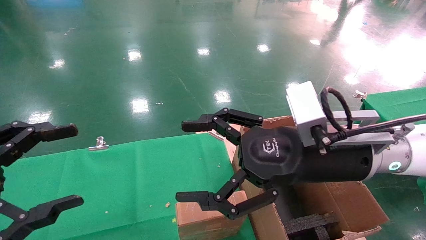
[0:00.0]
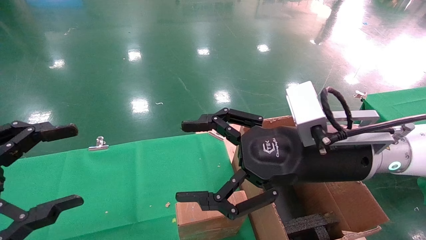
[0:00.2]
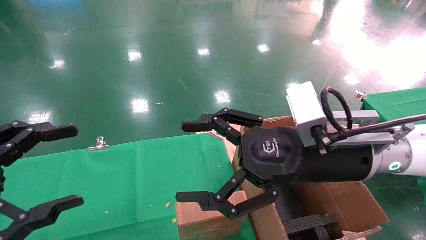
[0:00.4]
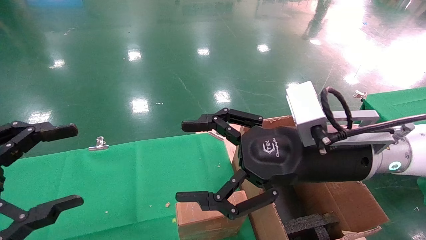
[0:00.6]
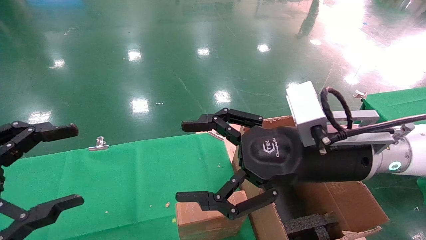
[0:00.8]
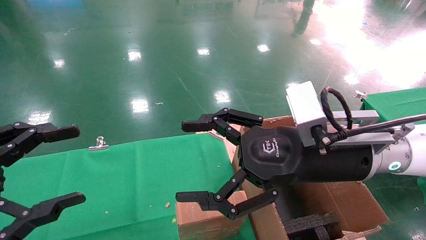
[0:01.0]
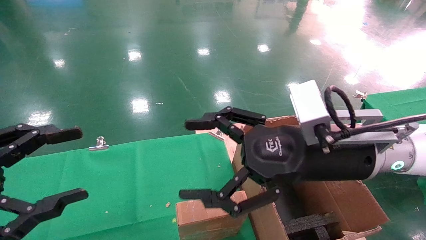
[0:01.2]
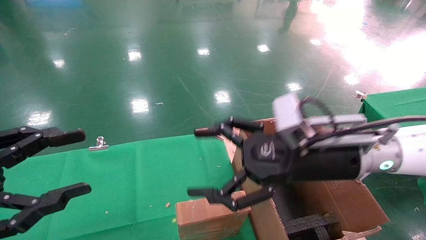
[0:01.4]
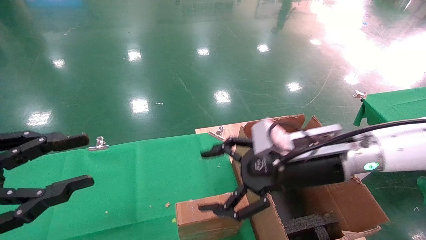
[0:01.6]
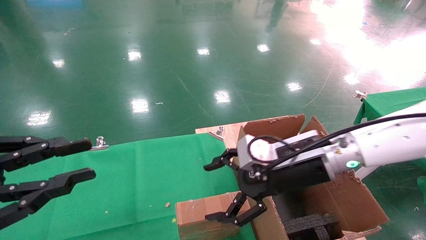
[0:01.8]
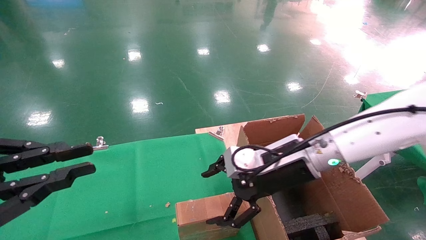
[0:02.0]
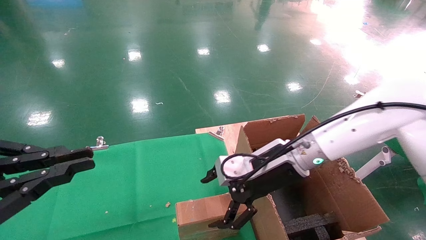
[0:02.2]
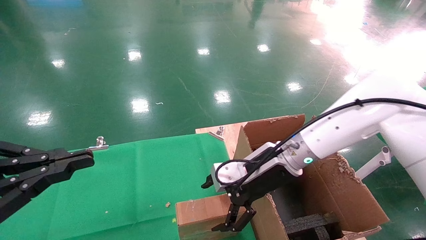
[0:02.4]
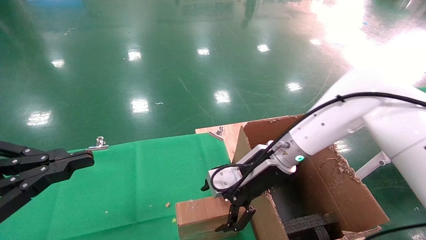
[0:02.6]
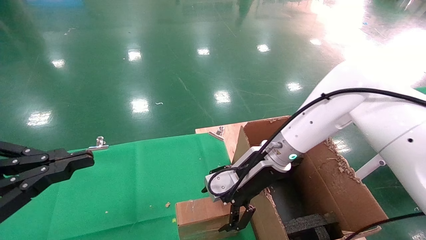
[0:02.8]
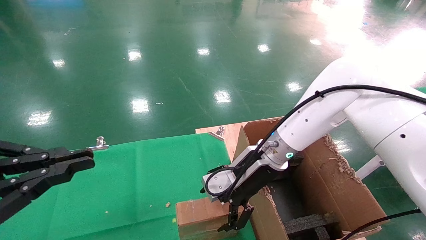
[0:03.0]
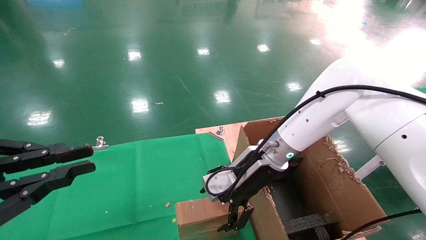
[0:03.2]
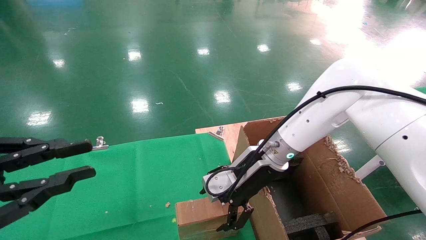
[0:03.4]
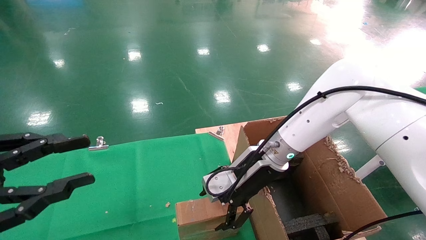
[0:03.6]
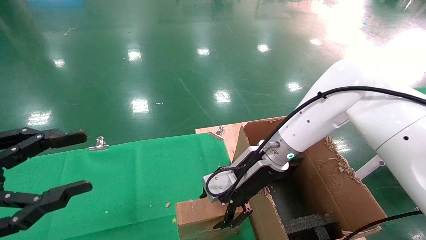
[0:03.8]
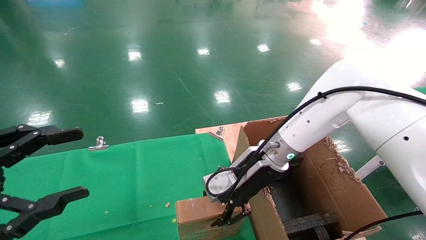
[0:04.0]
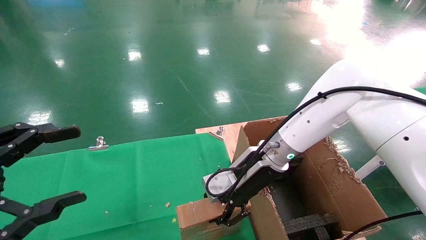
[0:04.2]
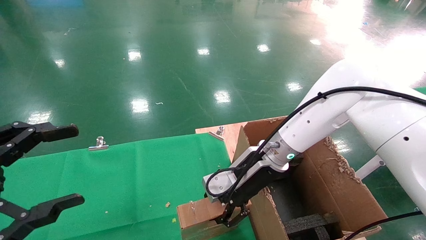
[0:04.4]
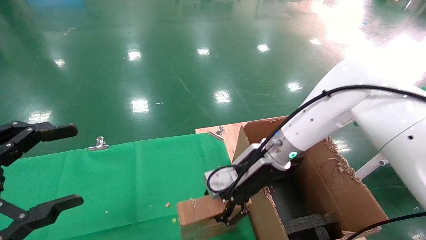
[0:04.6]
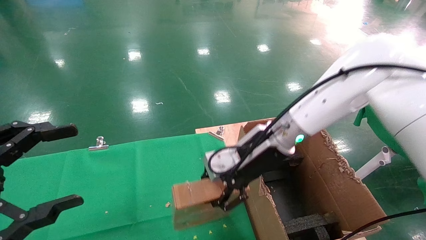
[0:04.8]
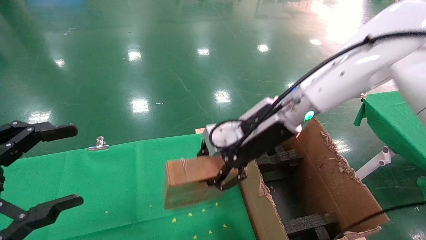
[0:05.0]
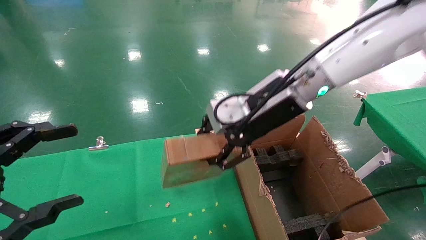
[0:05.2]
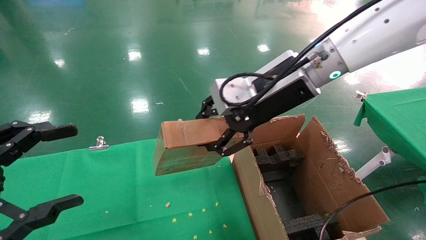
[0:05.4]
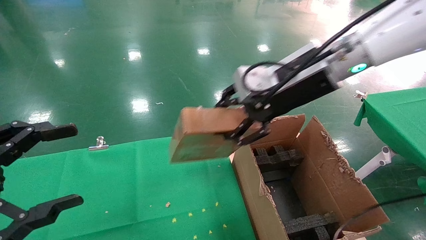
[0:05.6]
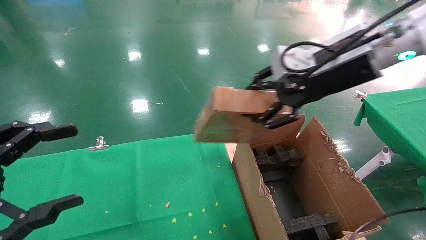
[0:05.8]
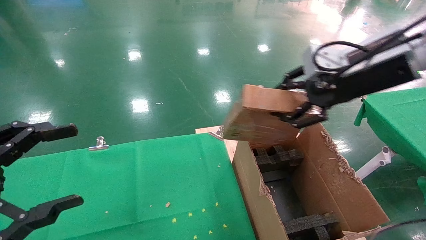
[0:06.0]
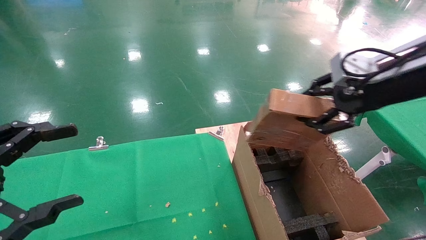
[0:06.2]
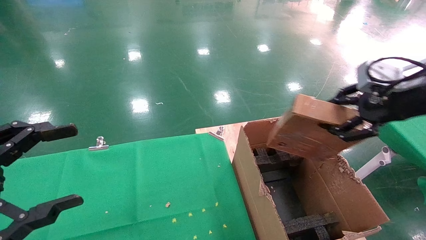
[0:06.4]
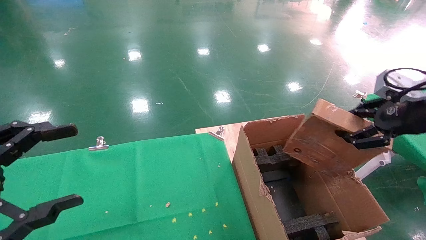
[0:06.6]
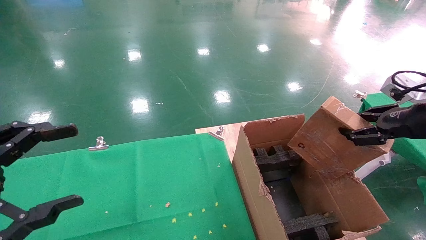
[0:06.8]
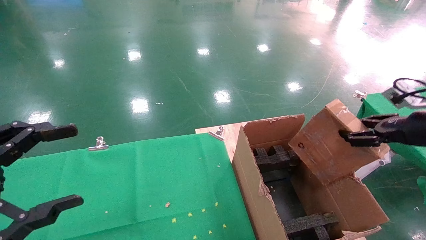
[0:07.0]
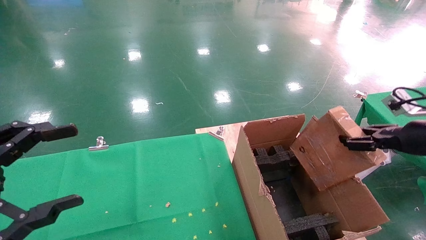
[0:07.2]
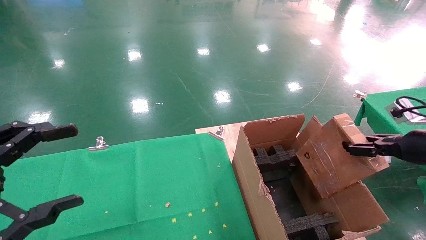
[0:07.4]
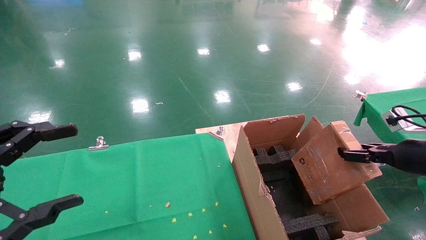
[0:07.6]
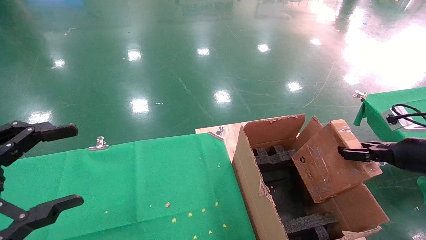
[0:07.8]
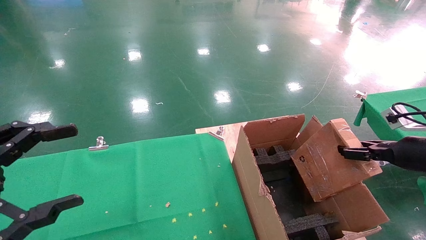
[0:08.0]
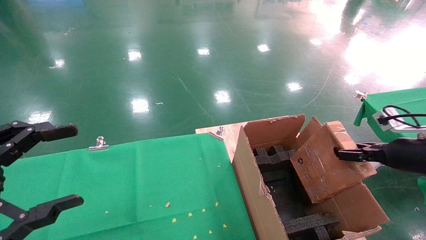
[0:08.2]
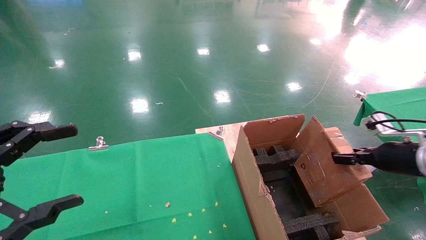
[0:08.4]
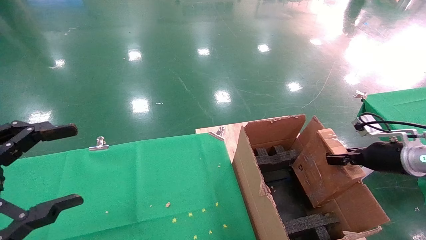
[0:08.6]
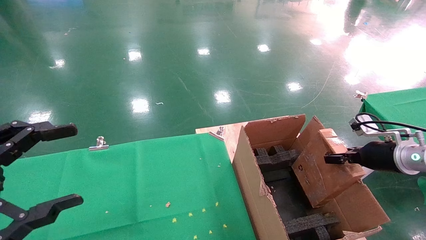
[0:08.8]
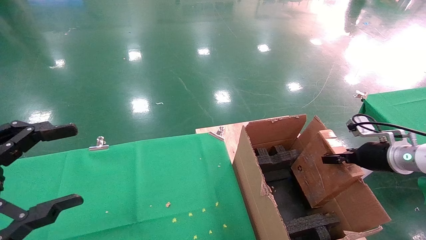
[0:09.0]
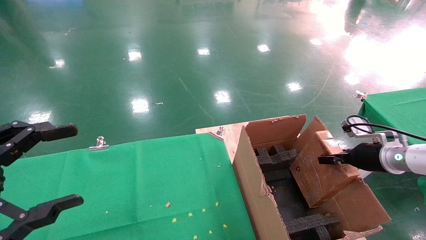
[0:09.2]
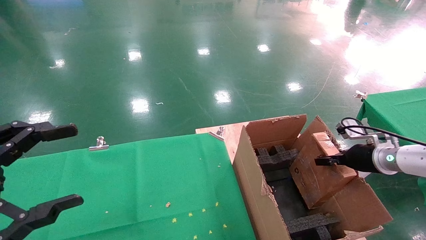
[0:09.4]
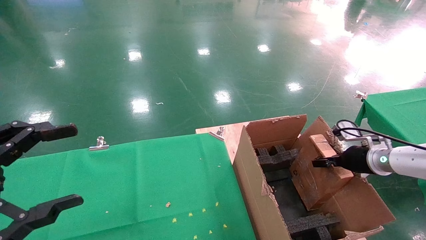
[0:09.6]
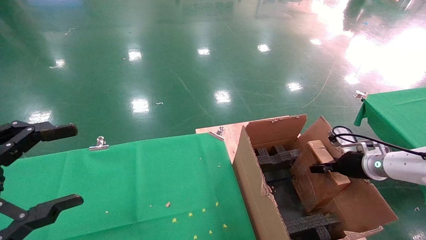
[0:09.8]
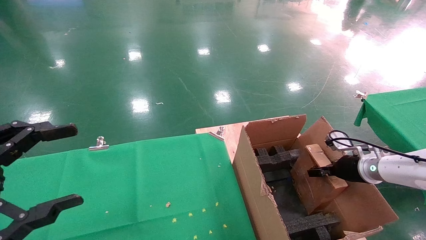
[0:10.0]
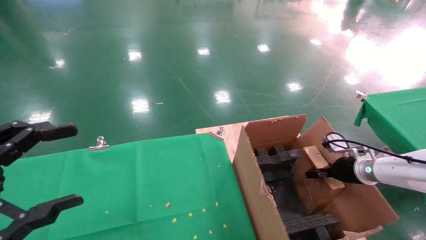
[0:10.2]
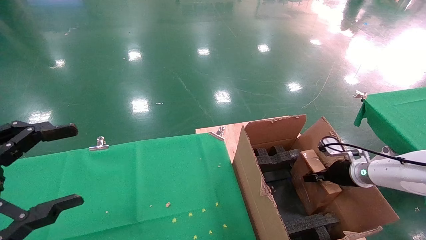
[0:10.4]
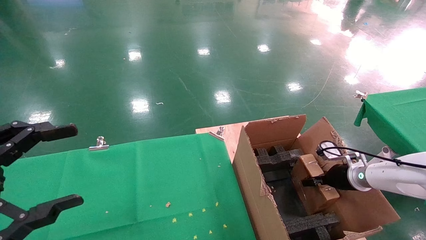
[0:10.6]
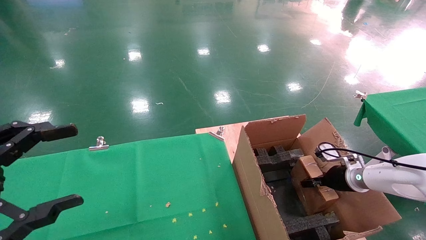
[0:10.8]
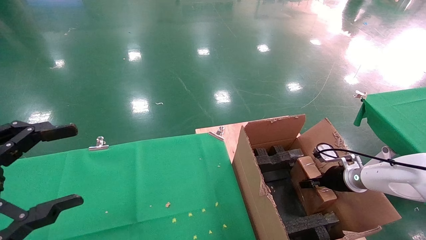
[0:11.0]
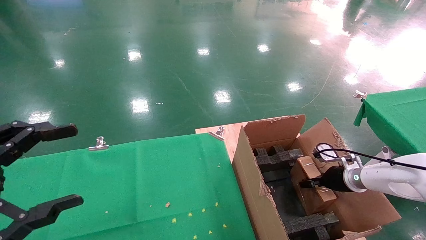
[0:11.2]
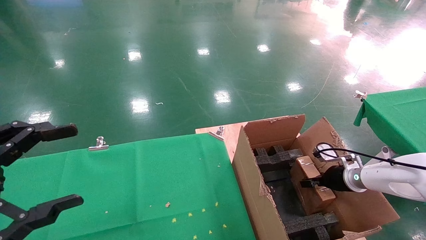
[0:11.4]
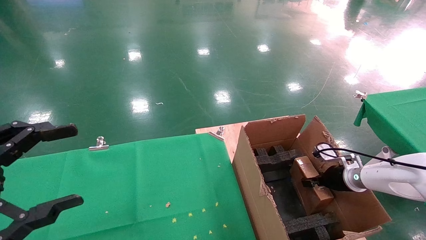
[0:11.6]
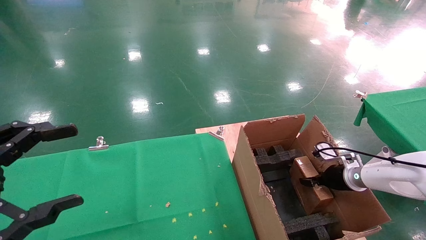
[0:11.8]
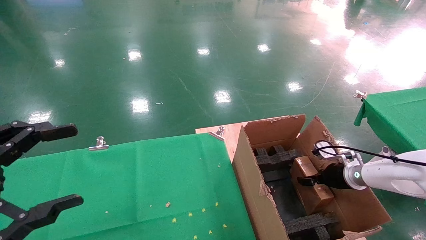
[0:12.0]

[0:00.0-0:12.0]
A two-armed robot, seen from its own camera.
Task of the whole recording: using a robotic arm to pick up a cardboard box and palace it the carton.
Step, 0:01.4 to 0:04.2: Pick up the mouse and the power cord paper box.
0:00.0 to 0:01.6: The right gripper shifts by about 5 cm; the left gripper closes its fingers.
0:01.6 to 0:03.0: The left gripper closes, while the right gripper goes some 10 cm forward and to the left.
0:03.0 to 0:04.4: The left gripper opens its fingers, while the right gripper closes its fingers.
0:04.4 to 0:06.0: The right gripper heads upward and to the right, covering approximately 25 cm.
0:06.0 to 0:07.6: The right gripper travels to the right and downward by roughly 25 cm.
0:07.6 to 0:09.0: The right gripper travels forward and downward by approximately 10 cm.
0:09.0 to 0:10.4: The right gripper travels downward by about 5 cm.
0:10.4 to 0:12.0: The right gripper opens.

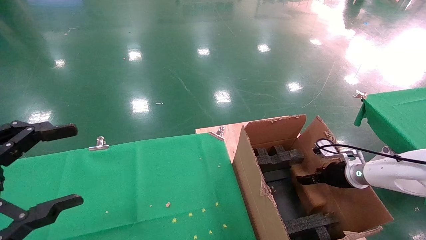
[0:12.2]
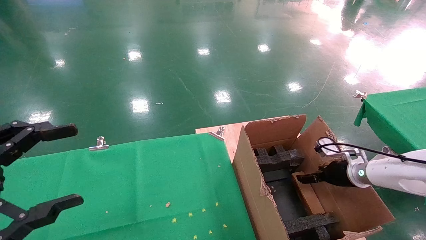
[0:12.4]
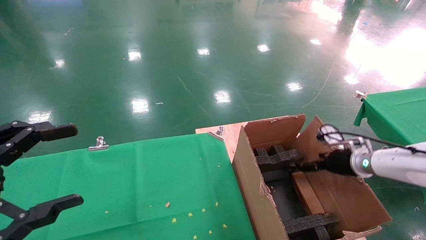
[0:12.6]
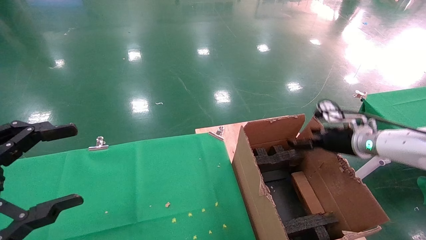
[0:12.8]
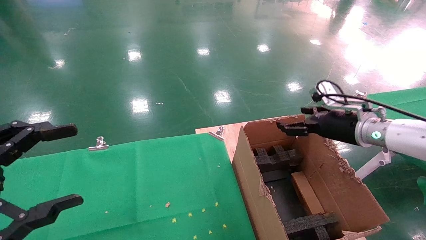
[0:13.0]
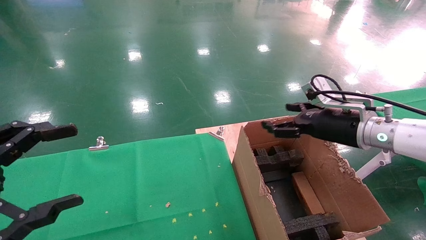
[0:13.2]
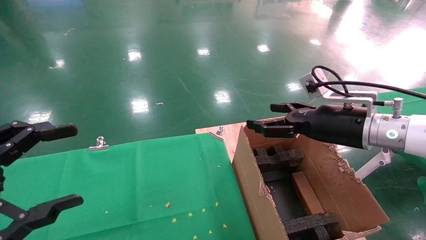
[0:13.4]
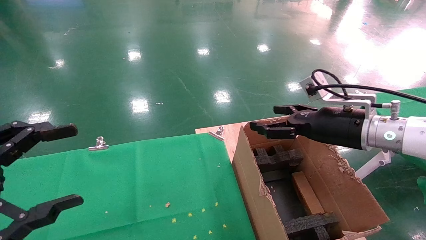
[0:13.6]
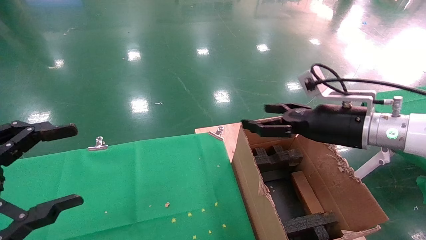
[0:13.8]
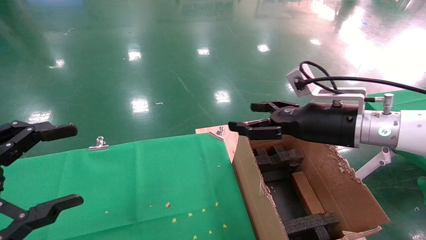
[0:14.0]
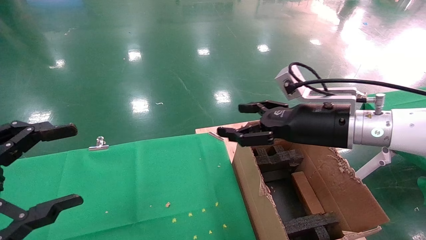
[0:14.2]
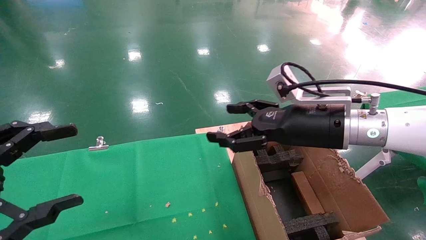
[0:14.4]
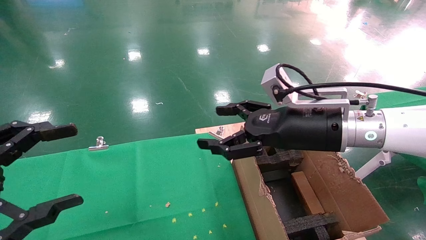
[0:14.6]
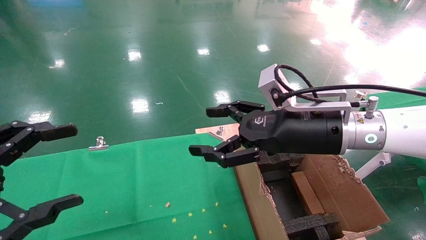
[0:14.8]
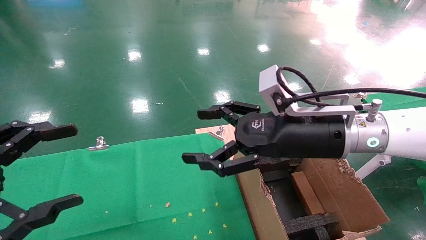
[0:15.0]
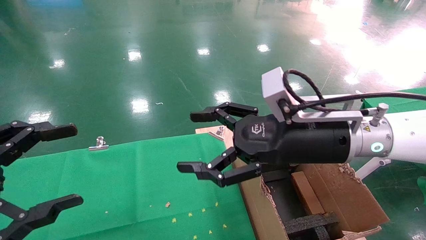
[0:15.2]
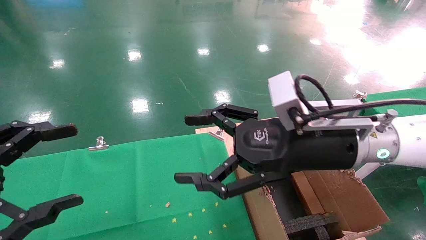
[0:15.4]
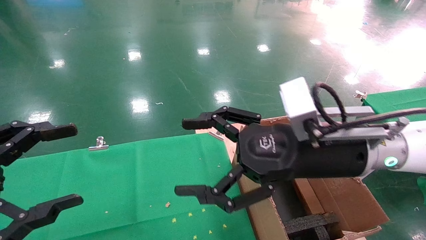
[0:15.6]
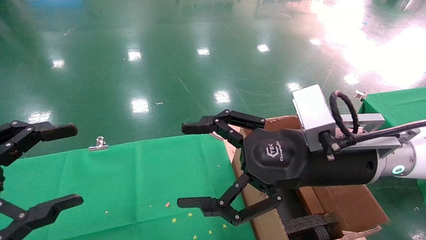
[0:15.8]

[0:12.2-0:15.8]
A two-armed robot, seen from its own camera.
Task of the whole recording: using a robotic arm to pick up a cardboard box and palace it the carton.
0:12.2 to 0:14.0: The right gripper is displaced upward, to the left and backward by roughly 25 cm, and opens up.
0:14.0 to 0:15.8: The right gripper travels to the left and backward by approximately 10 cm.
